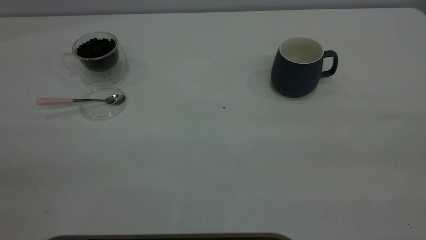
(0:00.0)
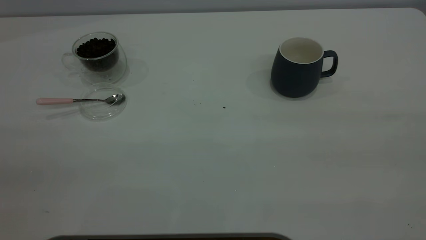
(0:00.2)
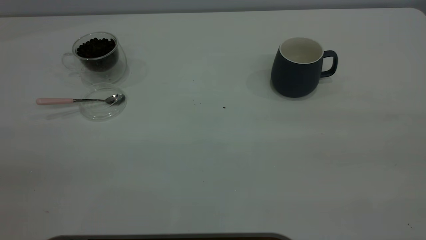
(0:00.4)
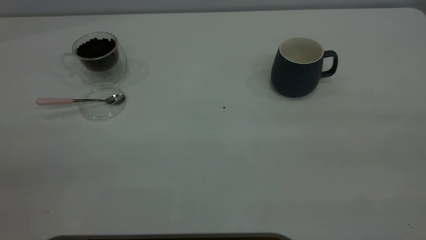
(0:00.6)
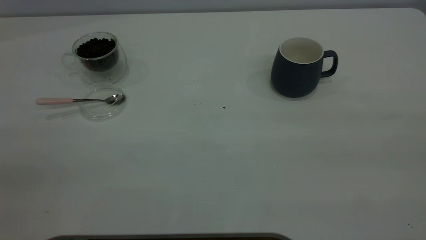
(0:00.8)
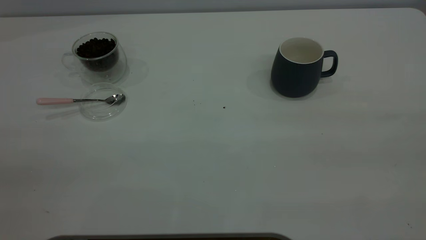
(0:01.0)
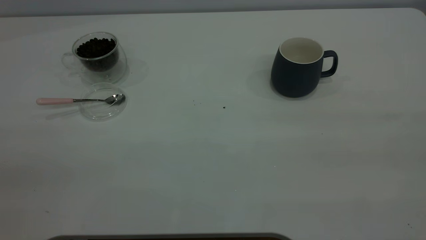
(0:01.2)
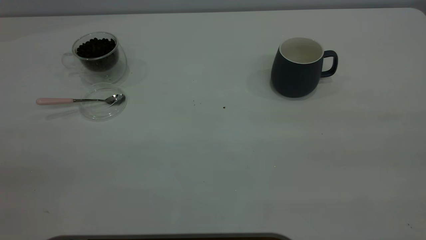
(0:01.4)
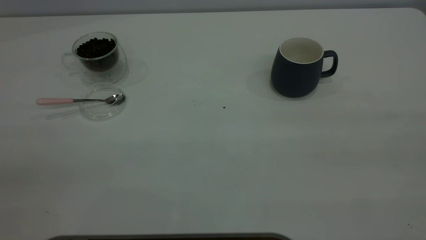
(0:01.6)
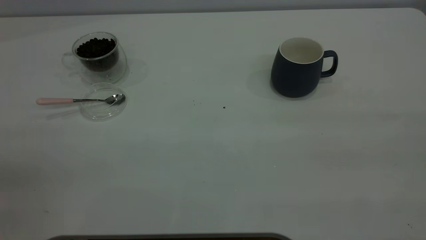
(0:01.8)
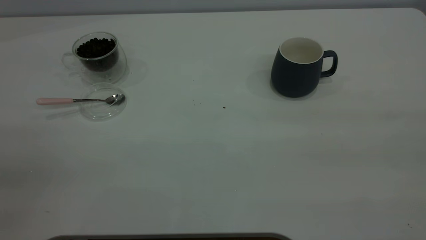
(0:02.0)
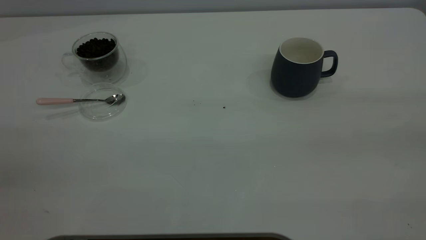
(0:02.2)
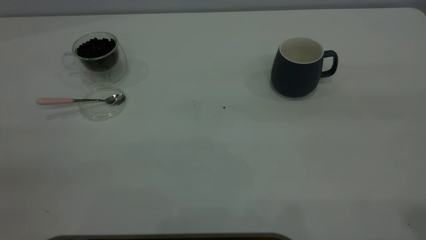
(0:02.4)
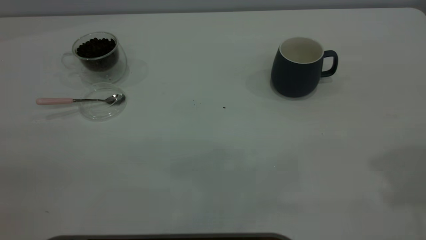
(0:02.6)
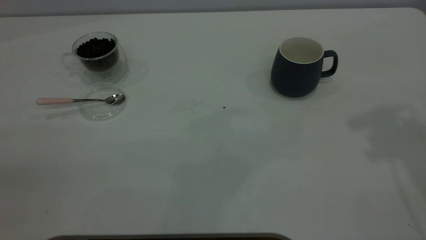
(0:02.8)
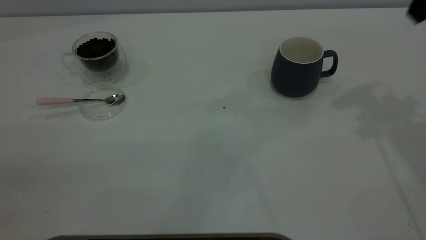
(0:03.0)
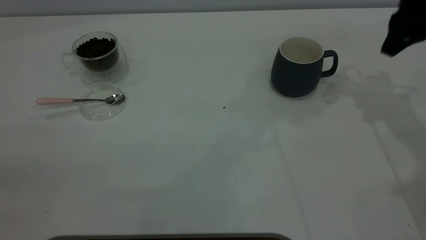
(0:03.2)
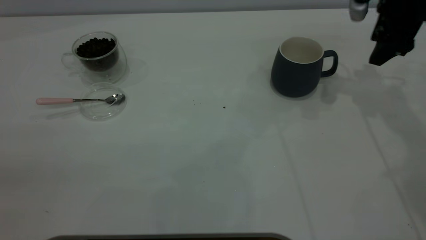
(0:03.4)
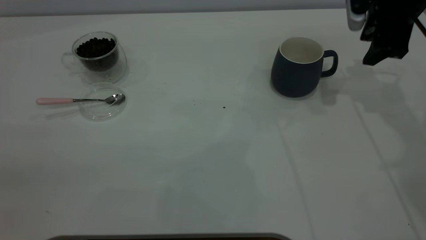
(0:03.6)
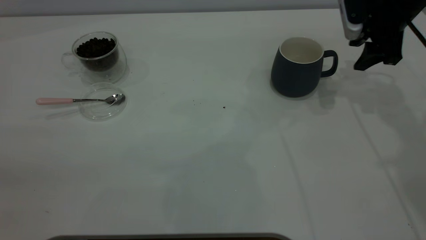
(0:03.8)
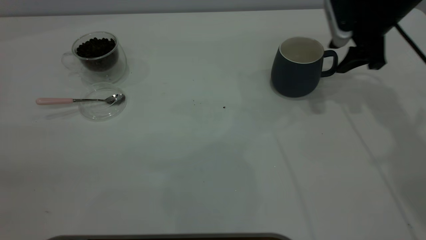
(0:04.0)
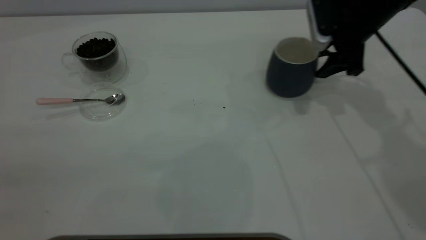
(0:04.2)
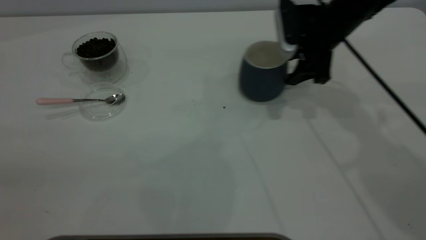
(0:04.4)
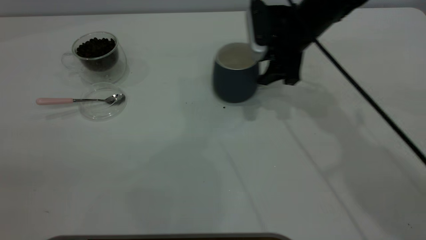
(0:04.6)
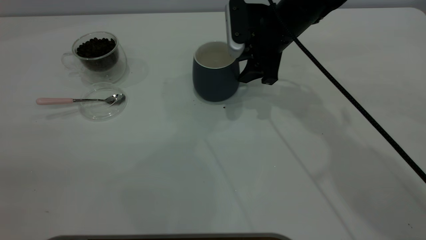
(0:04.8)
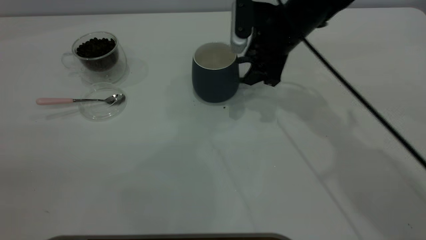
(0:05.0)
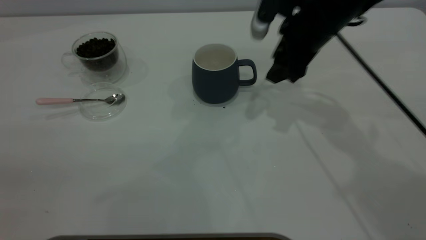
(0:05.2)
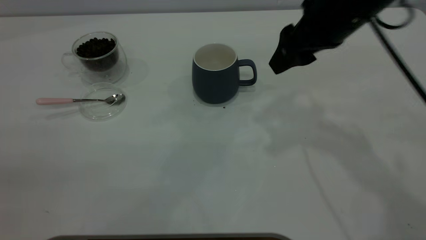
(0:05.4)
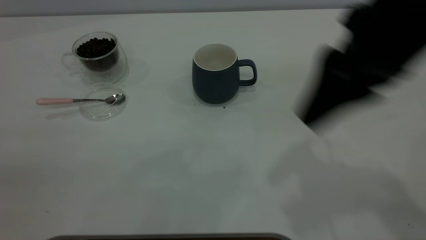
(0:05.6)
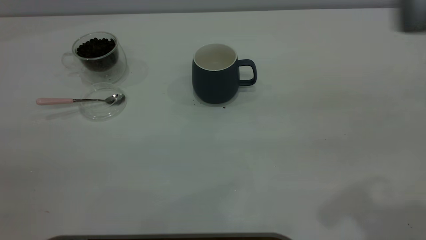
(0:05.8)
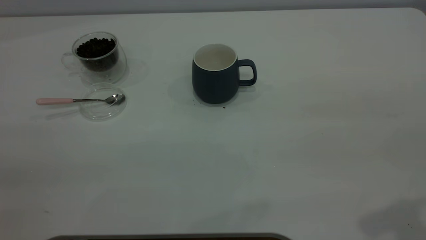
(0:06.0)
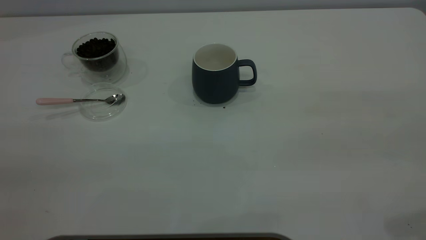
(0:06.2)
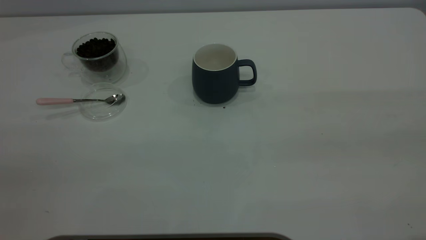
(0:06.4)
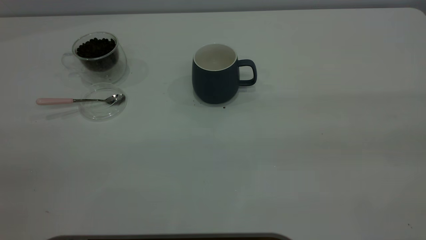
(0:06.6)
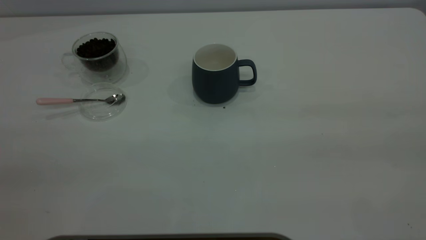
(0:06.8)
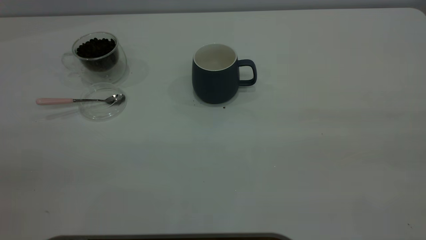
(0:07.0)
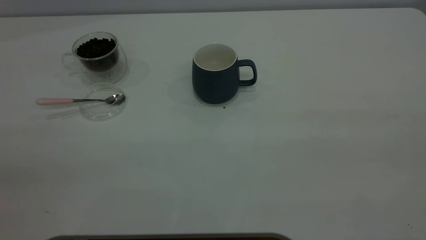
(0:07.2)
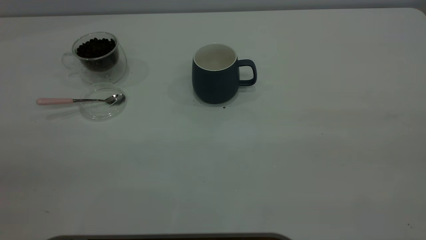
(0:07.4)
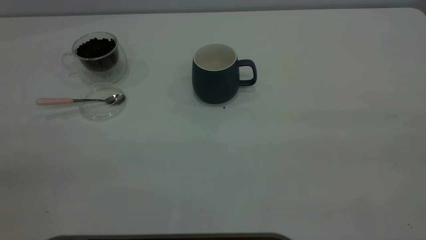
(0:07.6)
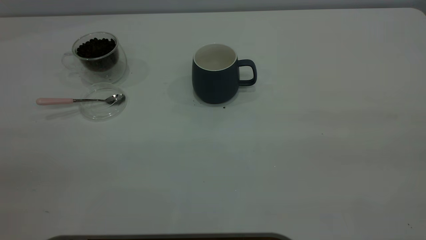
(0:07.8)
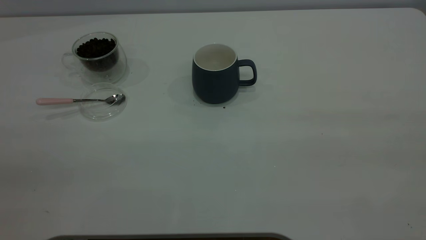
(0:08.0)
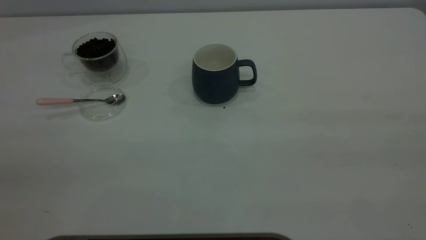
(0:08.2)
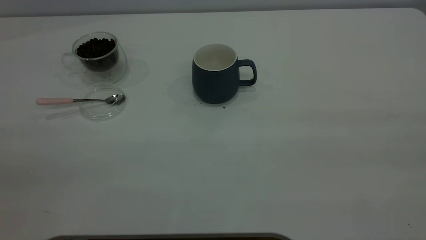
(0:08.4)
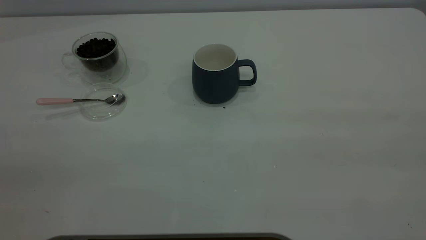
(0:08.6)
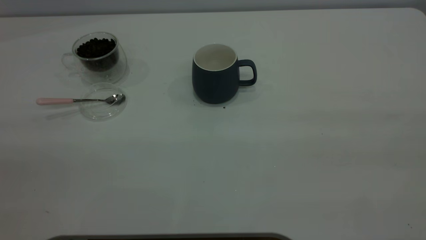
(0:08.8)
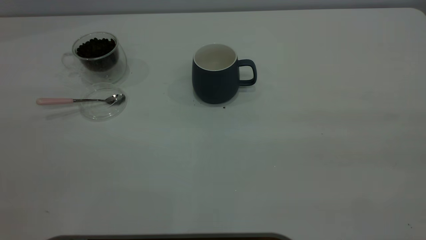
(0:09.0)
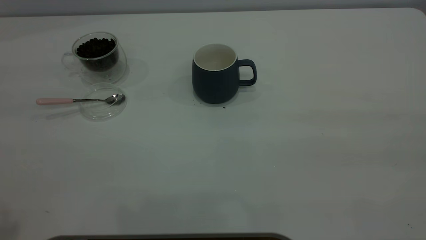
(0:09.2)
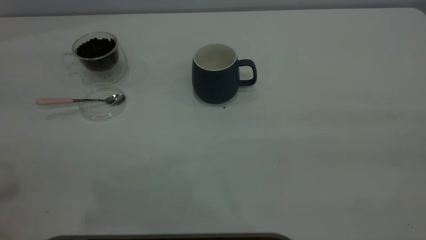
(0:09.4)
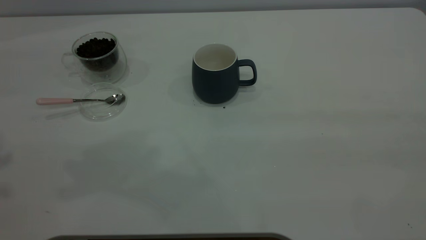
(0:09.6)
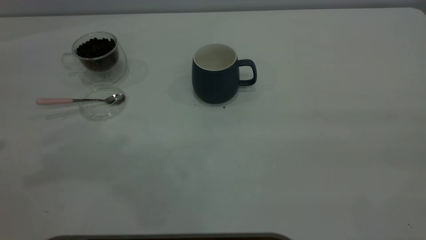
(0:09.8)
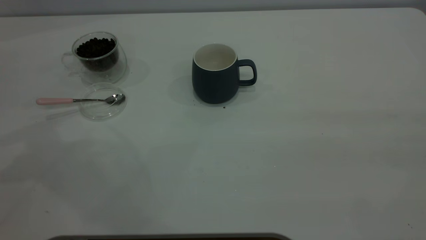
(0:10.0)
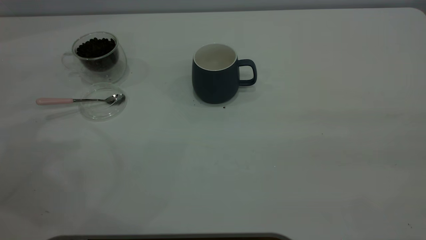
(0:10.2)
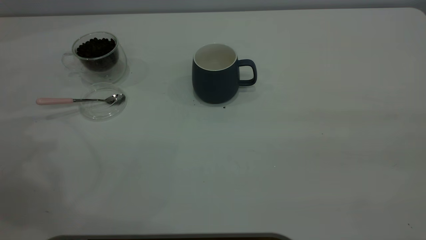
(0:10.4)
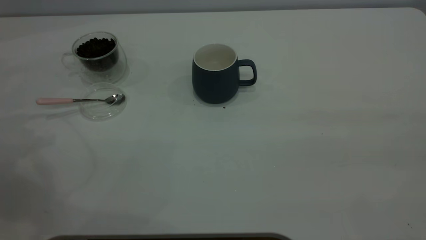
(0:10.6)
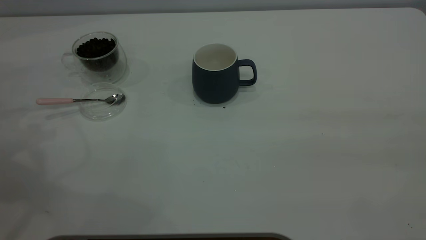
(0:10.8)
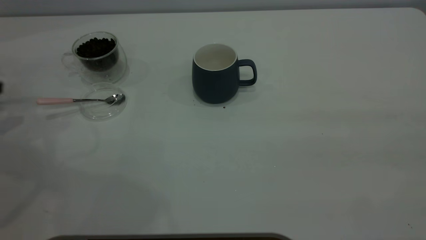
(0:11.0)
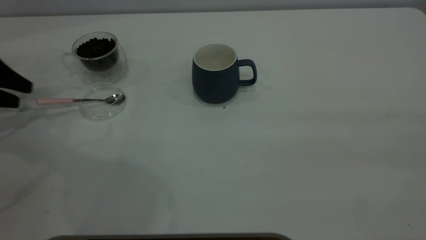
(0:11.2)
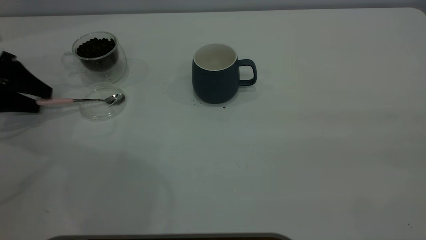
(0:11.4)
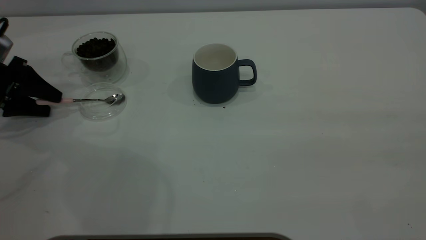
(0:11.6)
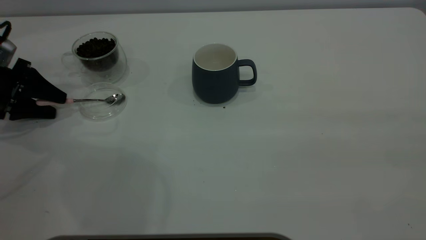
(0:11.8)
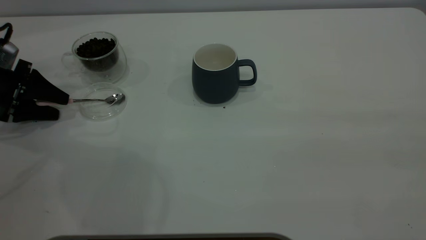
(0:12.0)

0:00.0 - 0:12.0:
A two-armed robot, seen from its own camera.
Task of the whole recording: the right gripper place the grey cup in the center of the table, the left gripper take the pink spoon from the cup lid and scoop out the coffee beans from the coffee cup and put them into the grey cup, the left gripper put the spoon back into the cup lid.
Step, 0:00.0 - 0:05.2: Move the cup to the center of view.
0:00.0 - 0:01.6: The two grippers keep their place.
0:03.0 - 0:04.4: The right gripper is displaced downward, to the left and forward by roughly 20 cm.
0:04.4 - 0:06.0: The right gripper moves backward and upward, about 35 cm.
0:10.4 - 0:12.0: The left gripper heads downward, to the right and forward, covering some 20 cm, and opens.

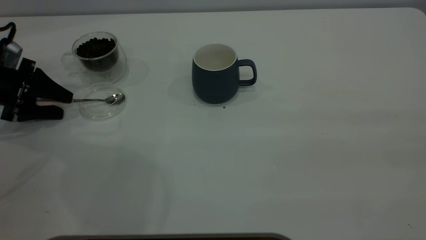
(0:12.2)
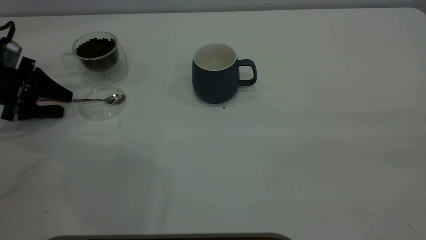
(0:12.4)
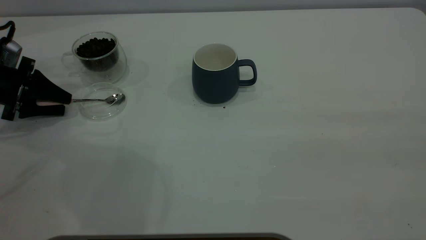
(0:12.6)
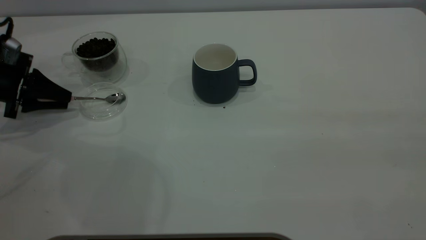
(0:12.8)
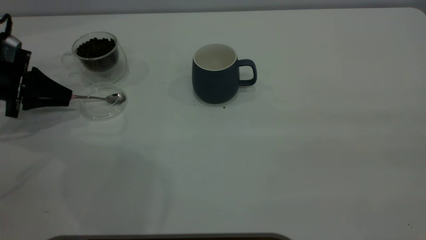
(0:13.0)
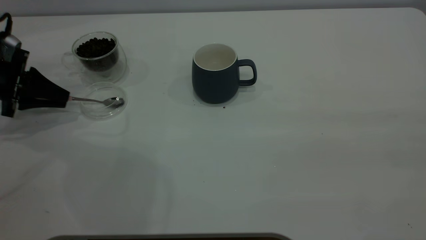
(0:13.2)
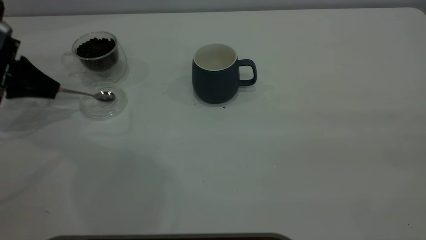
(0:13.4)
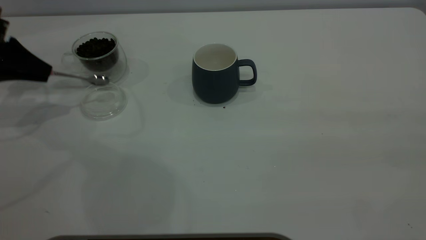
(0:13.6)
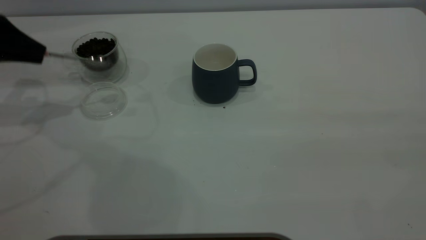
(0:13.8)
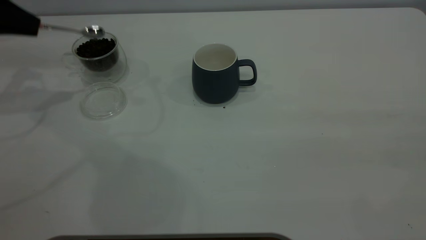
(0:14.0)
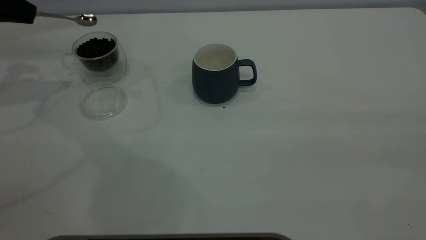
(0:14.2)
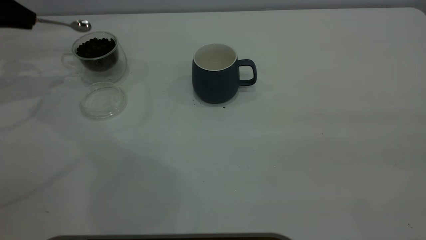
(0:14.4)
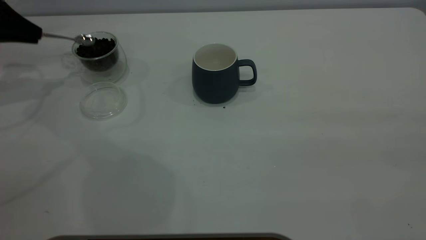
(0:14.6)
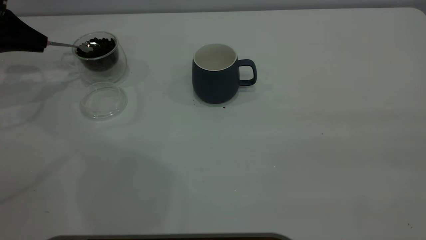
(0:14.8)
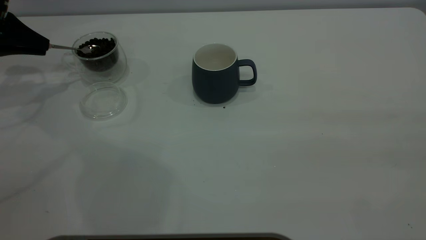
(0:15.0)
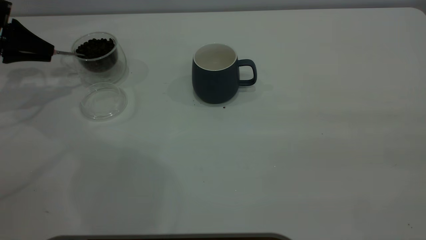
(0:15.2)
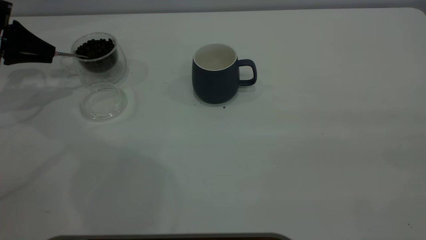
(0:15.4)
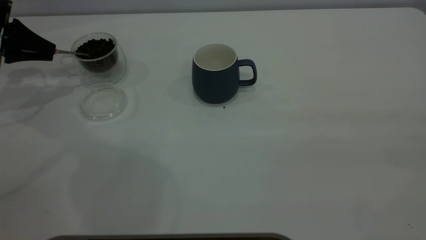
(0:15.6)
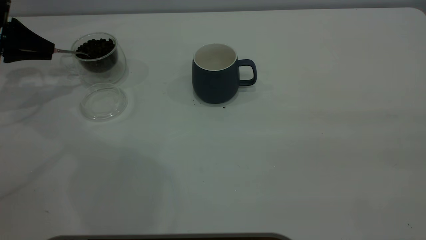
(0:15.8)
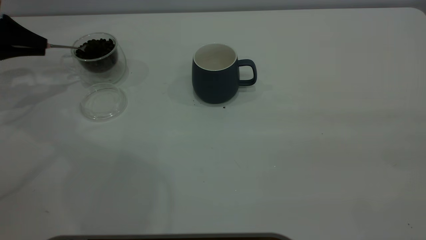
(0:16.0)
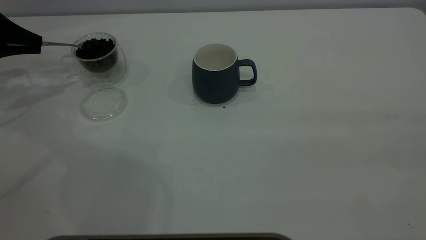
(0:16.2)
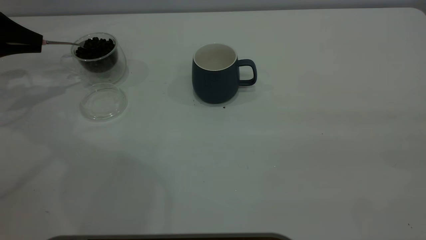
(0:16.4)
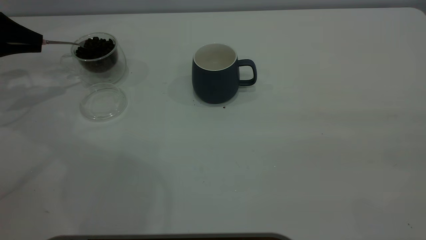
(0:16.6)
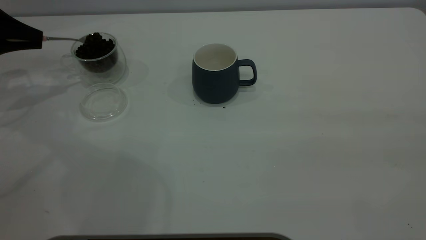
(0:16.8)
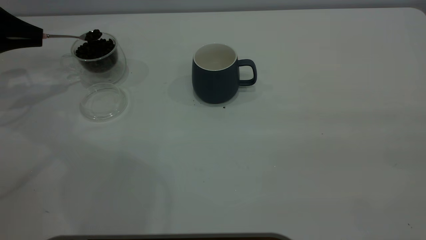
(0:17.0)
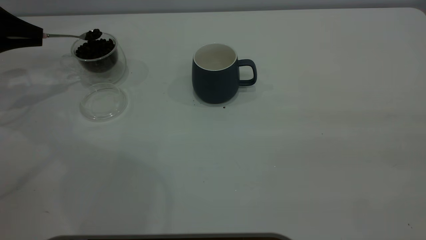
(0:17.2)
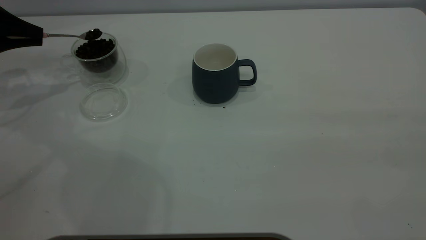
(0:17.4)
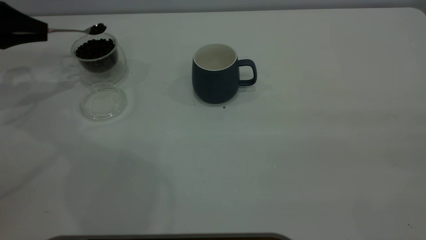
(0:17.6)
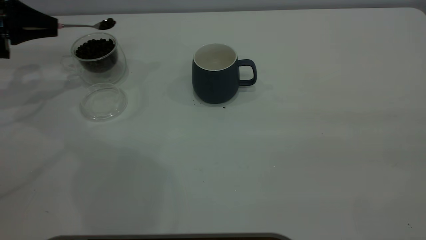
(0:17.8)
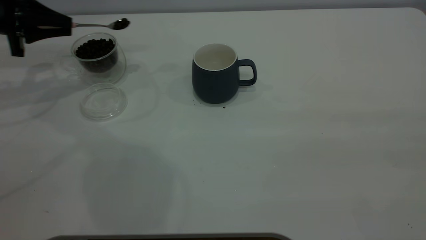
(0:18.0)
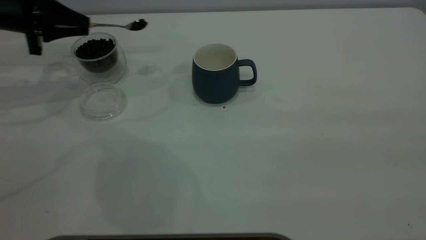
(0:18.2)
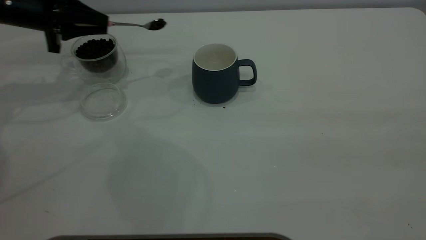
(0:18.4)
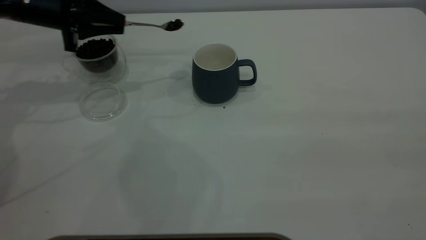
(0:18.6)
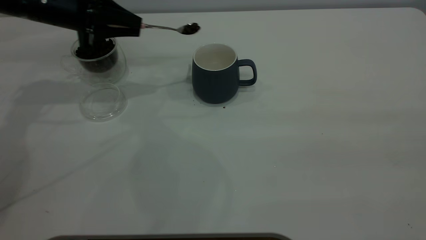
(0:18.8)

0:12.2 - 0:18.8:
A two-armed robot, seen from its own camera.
Task of the whole recording: the right gripper place the grey cup in the center of the table, the left gripper take the pink spoon from the cup lid and scoop out the coffee beans from the coffee cup and put them into the grey cup, the left gripper put the spoon back into the cup lid.
0:12.2 - 0:13.8: The left gripper travels upward by approximately 10 cm, and closes its fingers.
0:13.8 - 0:15.4: The left gripper changes place by about 5 cm.
0:15.4 - 0:17.2: The grippers stay close to where they were, moving slightly.
0:17.2 - 0:18.8: The left gripper shifts approximately 15 cm to the right.
